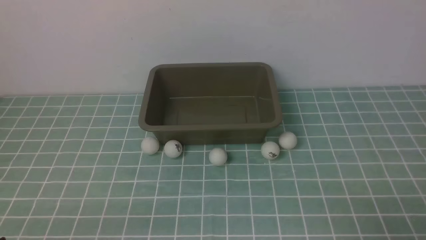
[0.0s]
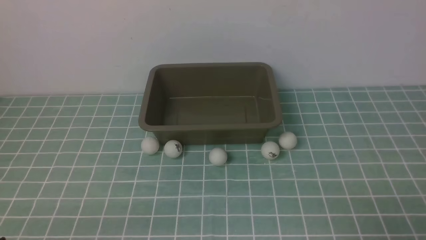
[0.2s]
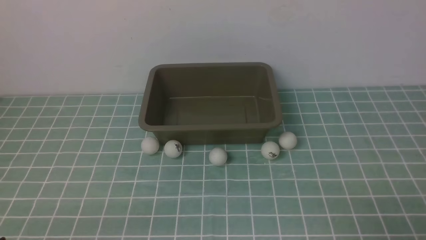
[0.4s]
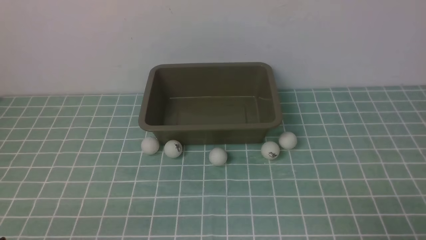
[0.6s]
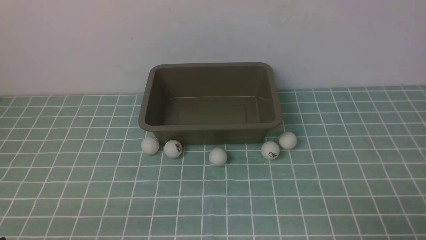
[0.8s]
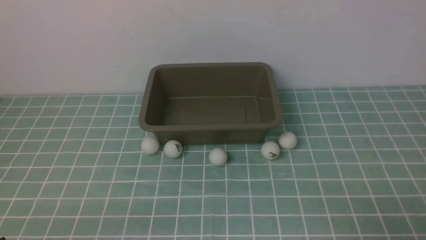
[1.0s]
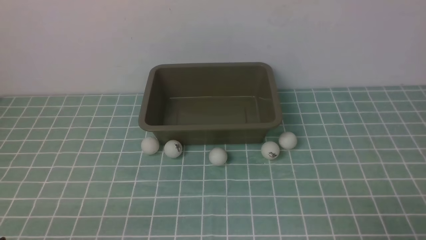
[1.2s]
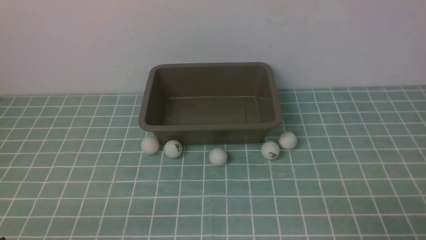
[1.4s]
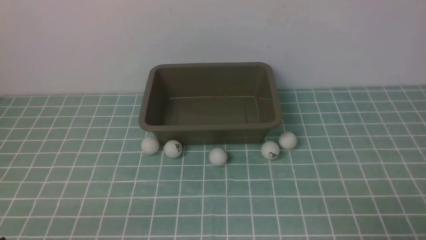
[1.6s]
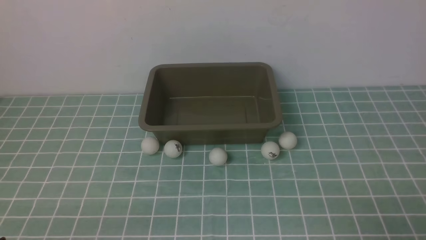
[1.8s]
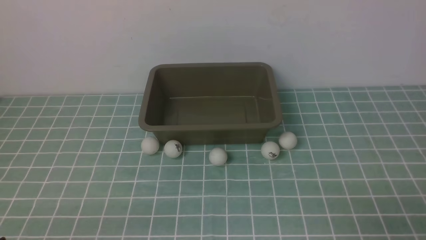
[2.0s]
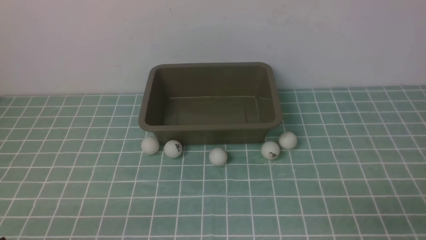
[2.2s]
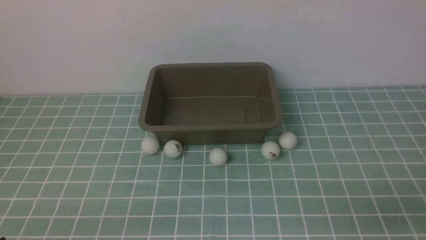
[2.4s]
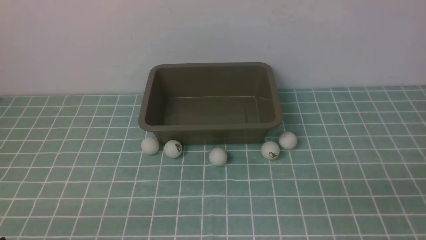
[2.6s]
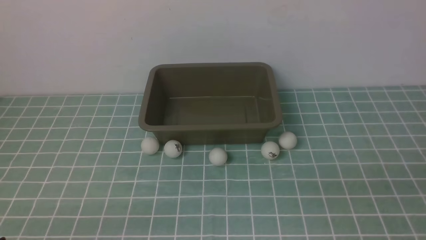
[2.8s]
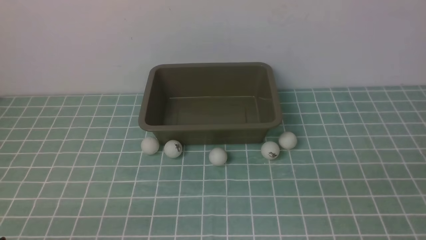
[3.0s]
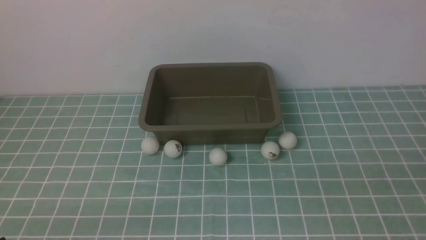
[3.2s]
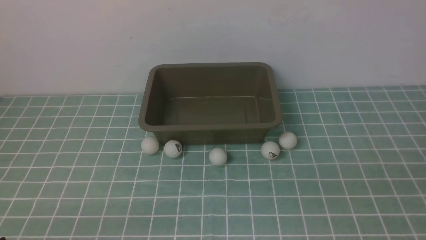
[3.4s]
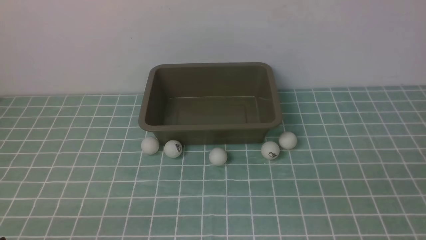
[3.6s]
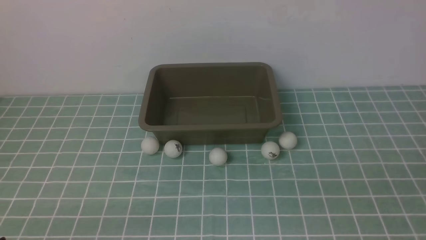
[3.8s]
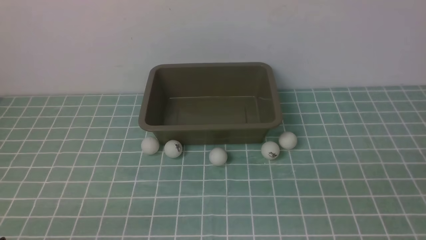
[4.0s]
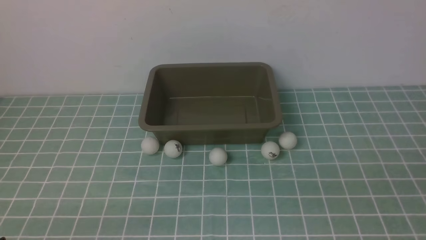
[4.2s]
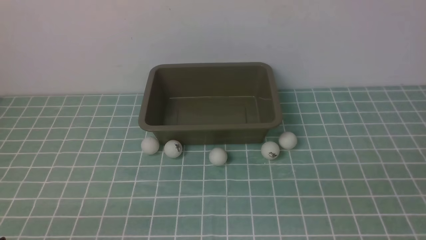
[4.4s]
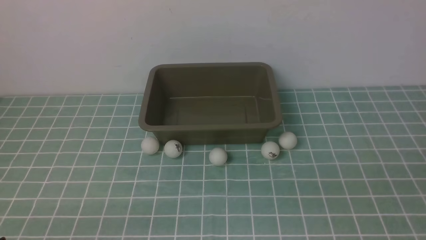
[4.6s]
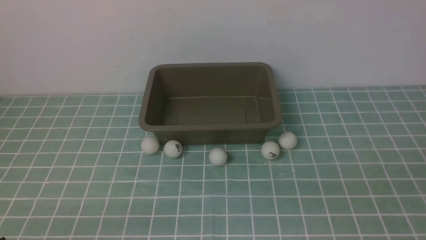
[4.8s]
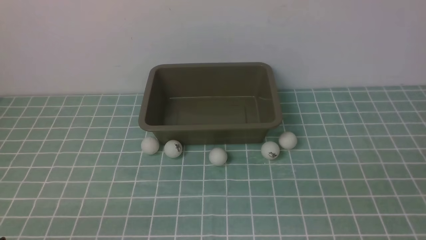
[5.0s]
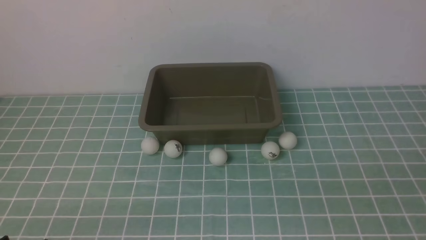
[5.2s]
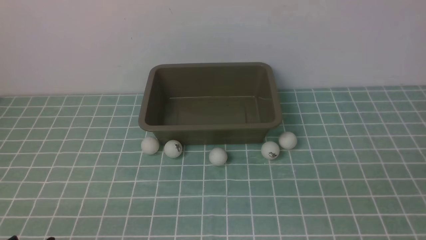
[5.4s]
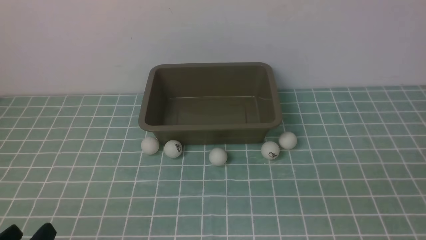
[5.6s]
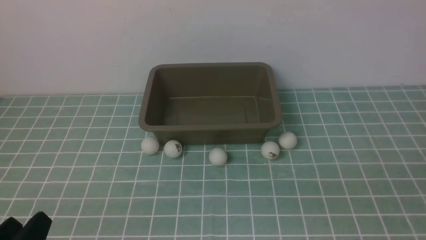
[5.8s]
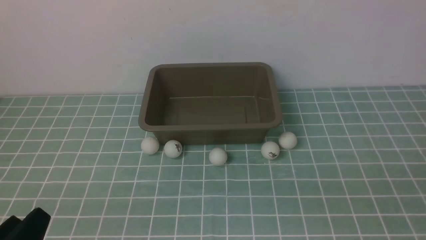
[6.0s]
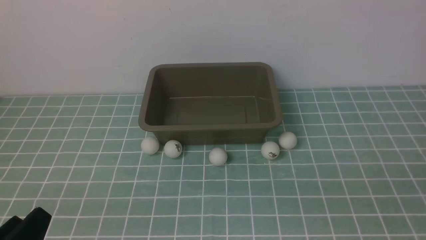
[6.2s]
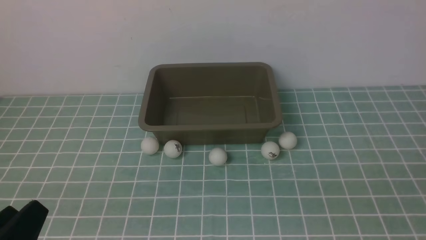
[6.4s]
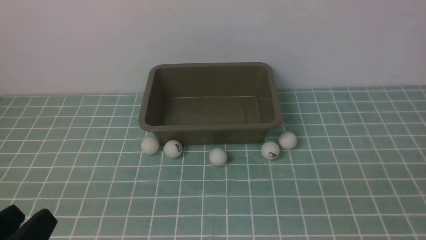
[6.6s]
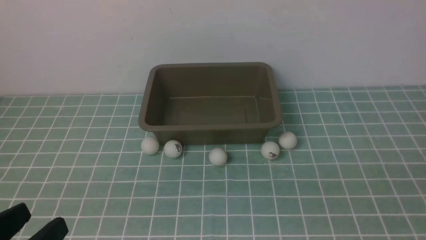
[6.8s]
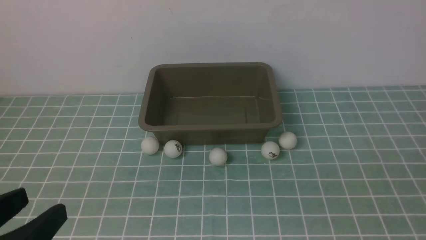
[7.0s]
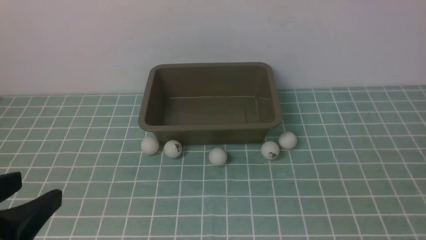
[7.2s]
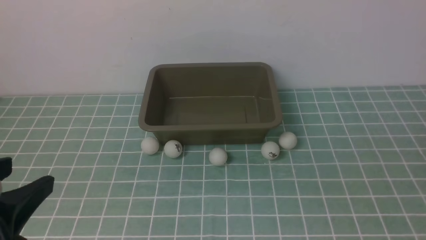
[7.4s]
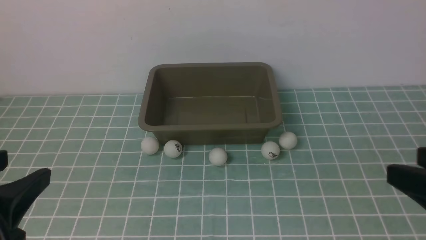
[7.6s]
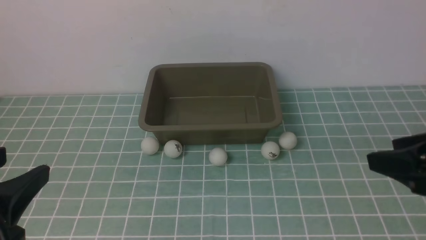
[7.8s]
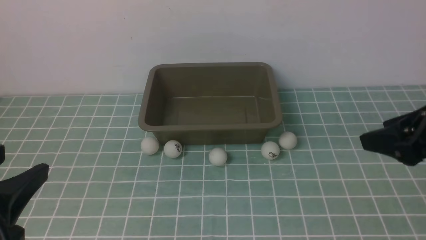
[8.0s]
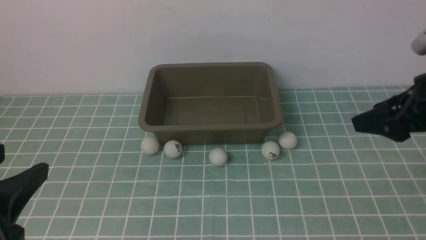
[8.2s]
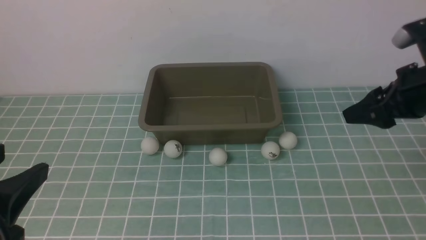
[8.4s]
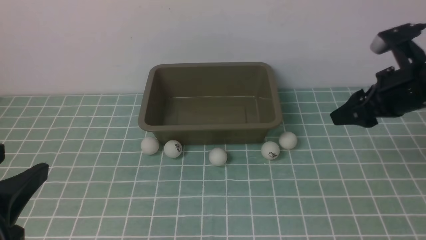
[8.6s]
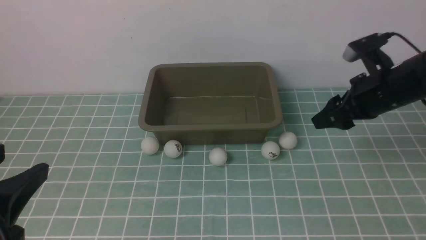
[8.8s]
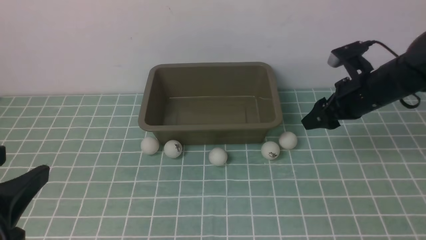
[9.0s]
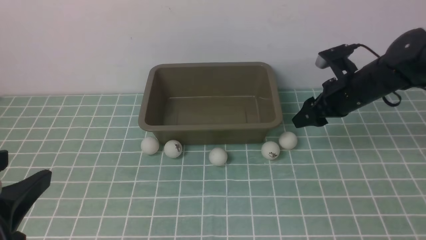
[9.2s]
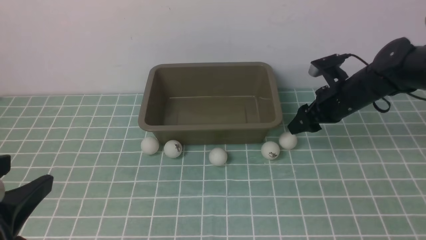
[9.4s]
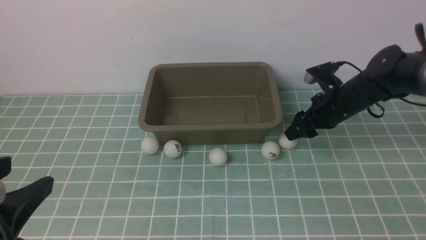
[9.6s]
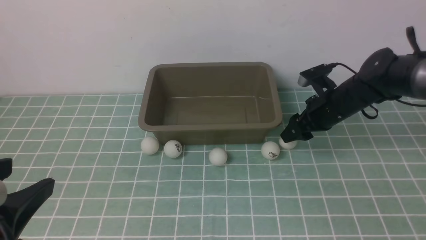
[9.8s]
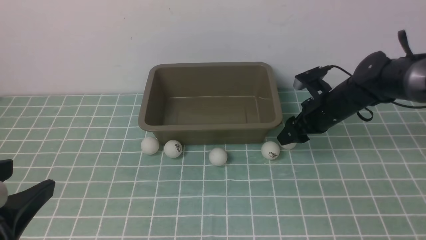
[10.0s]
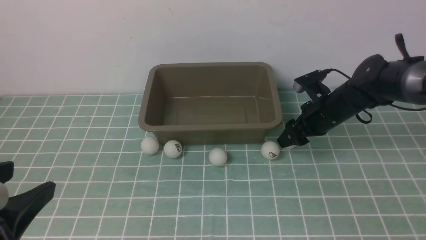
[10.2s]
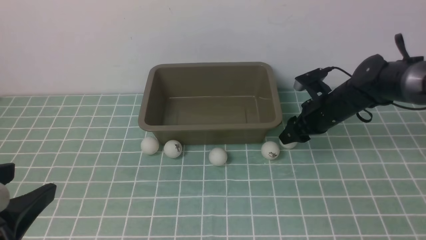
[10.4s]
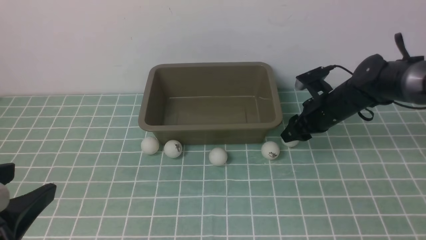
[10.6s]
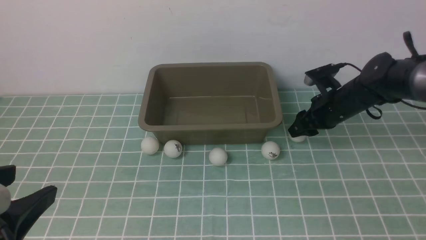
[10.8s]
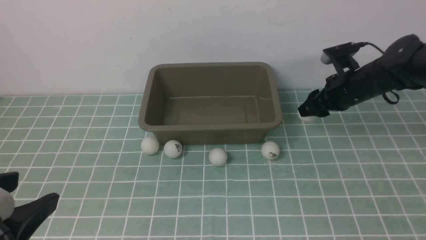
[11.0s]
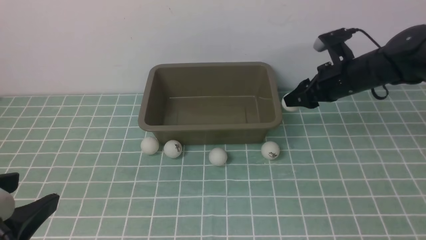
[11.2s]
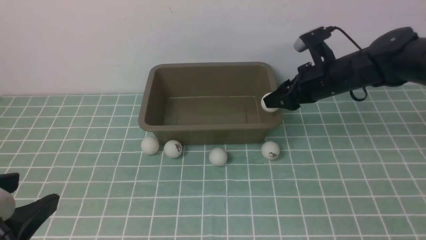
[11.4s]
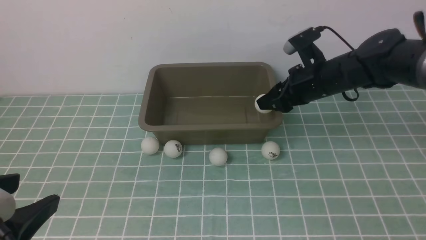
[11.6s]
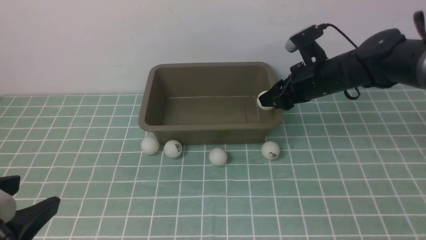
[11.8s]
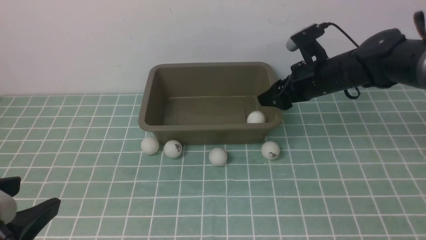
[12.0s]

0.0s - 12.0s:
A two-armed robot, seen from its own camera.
Step, 0.0s - 11.0s: use the right arm to clamp the table tennis ball closest to it.
0.0s - 1.6s: The two grippers keep their place.
6.0s - 7.6s: The left gripper is displaced upward by roughly 15 cm. The right gripper goes approximately 10 cm forward.
7.6s - 9.0s: The right gripper shifts some 25 cm forward.
9.0s - 10.4s: The right gripper is displaced downward by about 10 cm.
10.4s - 12.0s: The right gripper is displaced upward by roughly 10 cm.

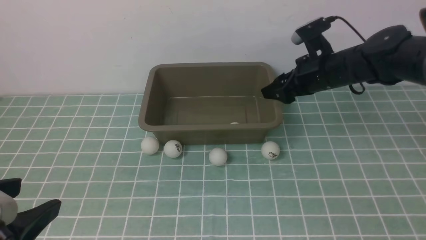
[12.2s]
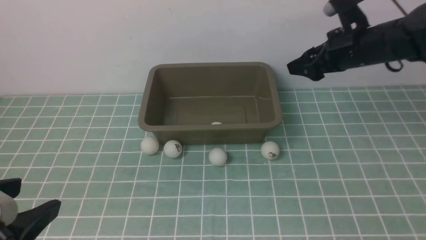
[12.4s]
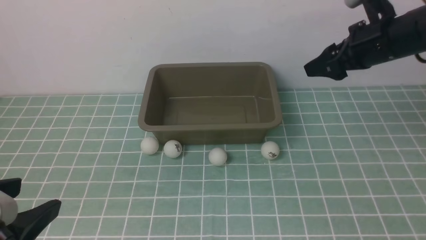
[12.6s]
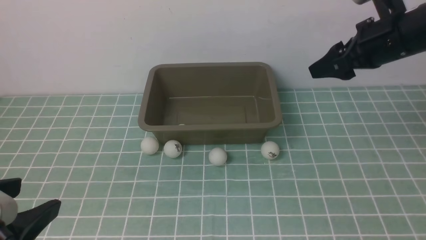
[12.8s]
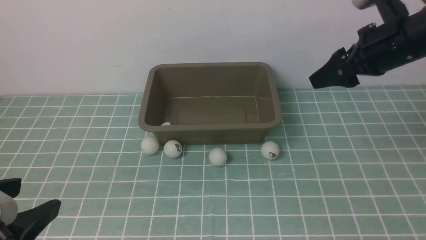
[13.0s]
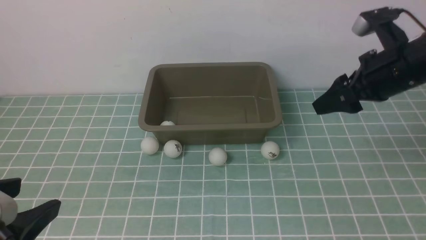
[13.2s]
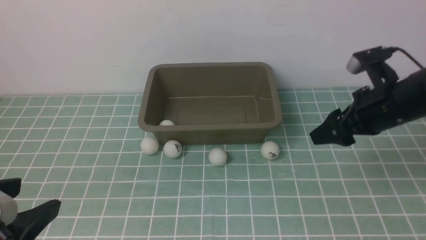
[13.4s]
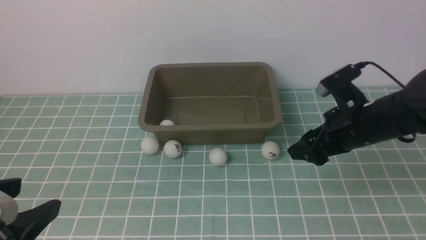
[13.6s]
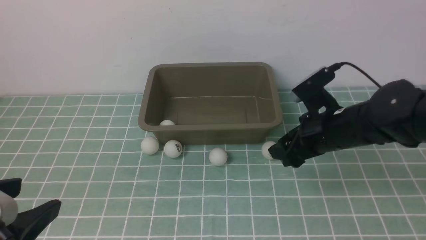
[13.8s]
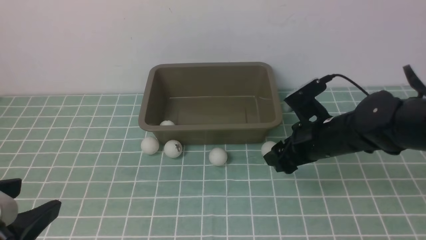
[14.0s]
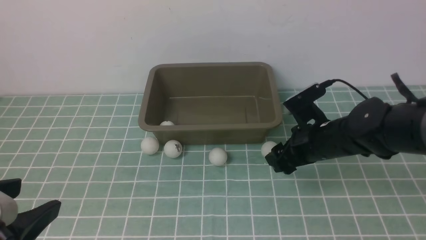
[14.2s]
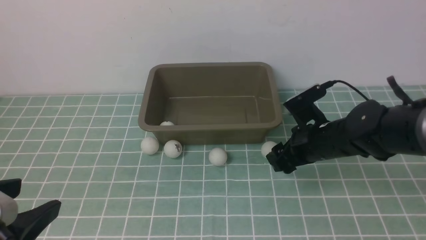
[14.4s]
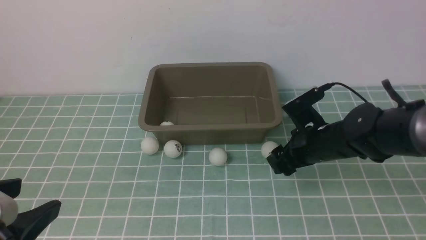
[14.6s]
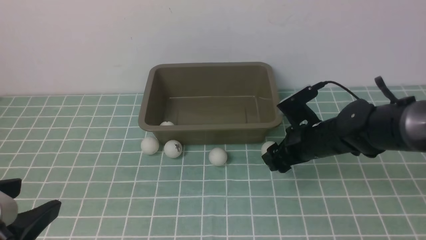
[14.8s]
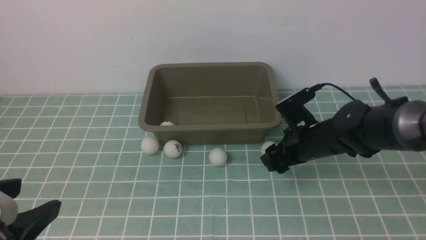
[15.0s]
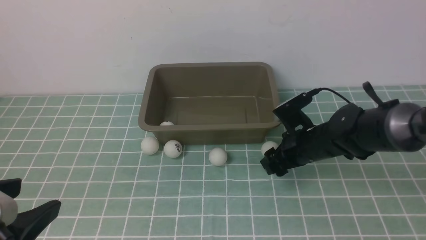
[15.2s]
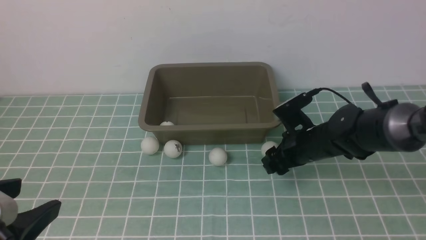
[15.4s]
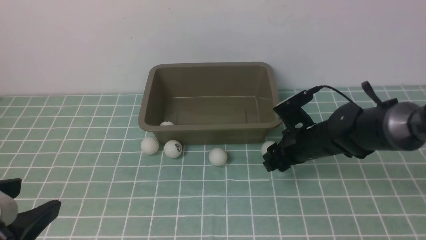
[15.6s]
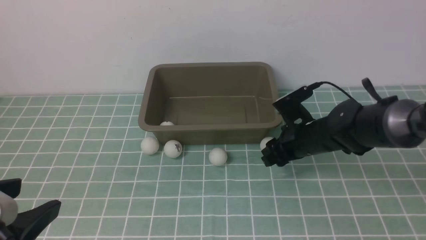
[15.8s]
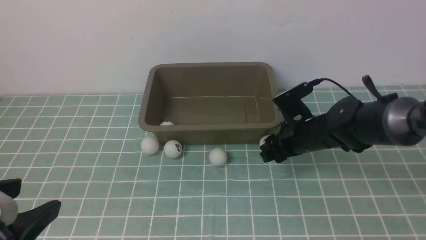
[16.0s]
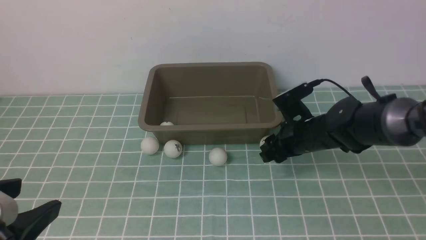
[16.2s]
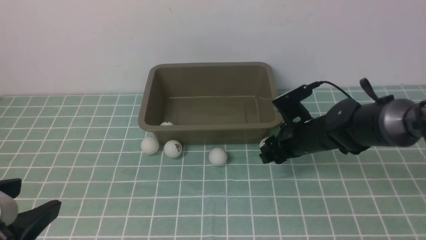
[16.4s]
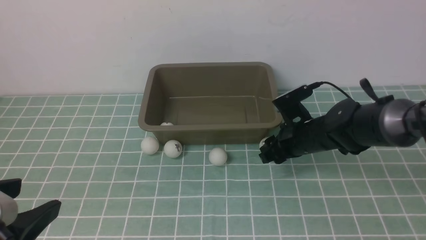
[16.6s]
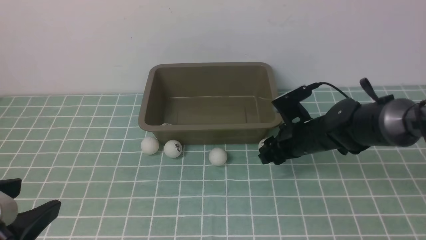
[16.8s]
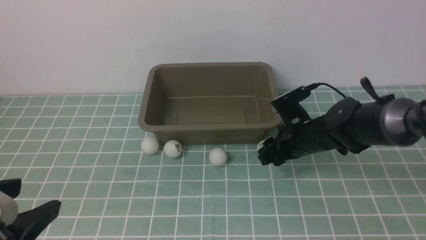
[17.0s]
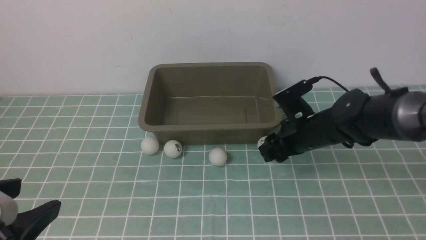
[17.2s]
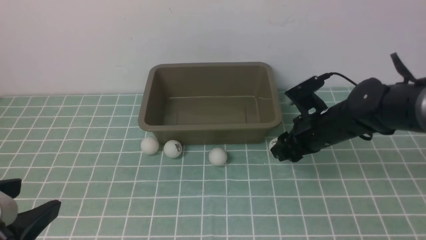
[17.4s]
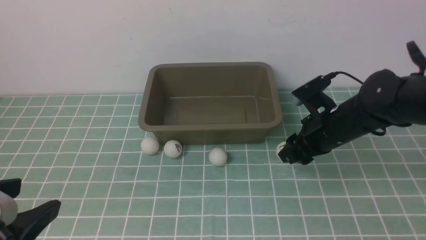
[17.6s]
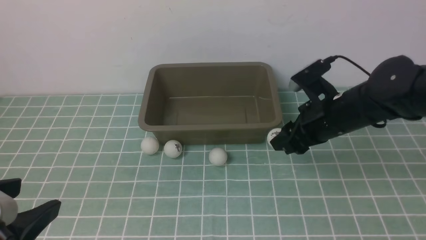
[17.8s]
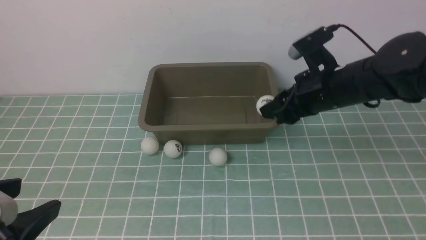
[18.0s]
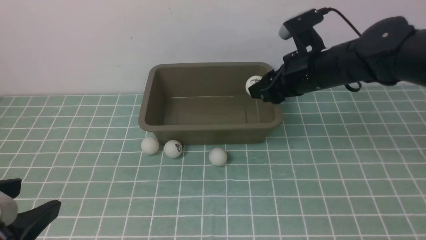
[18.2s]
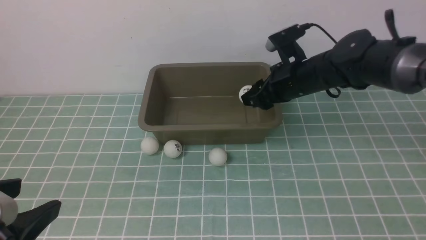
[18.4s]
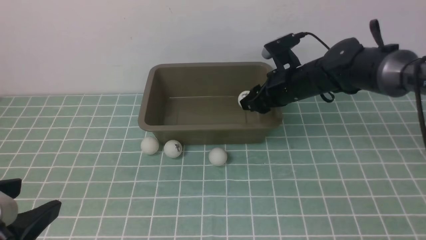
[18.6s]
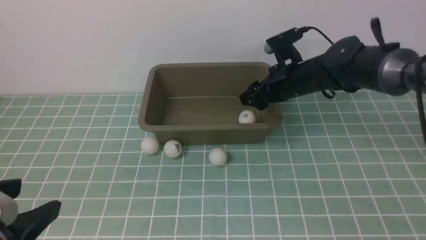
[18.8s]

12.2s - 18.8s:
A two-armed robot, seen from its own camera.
Step, 12.4s - 17.2s: use the right arm to clamp the table tennis ball closest to it.
12.2s - 13.8s: The right gripper travels backward by approximately 10 cm, and moves some 5 cm upward and comes back.
13.8s - 15.4s: The right gripper moves downward, approximately 10 cm.
15.4s - 17.2s: The grippers move only a little.
17.2s - 18.8s: The right gripper heads forward and upward, covering some 10 cm, and opens.
